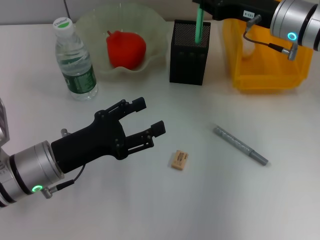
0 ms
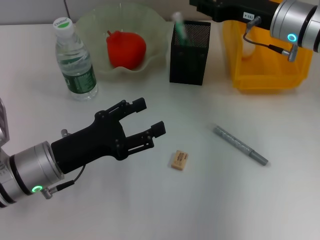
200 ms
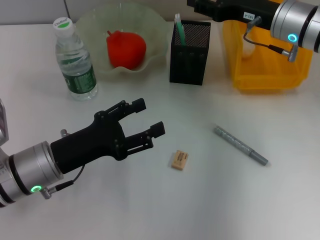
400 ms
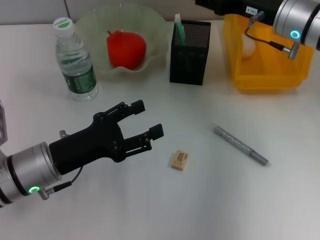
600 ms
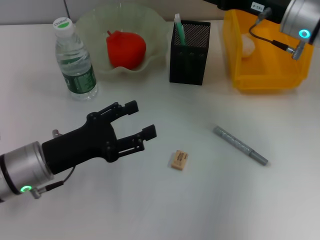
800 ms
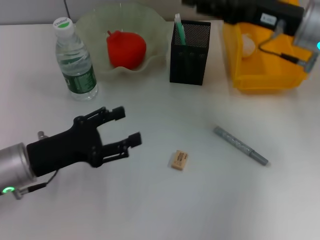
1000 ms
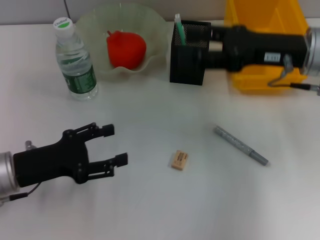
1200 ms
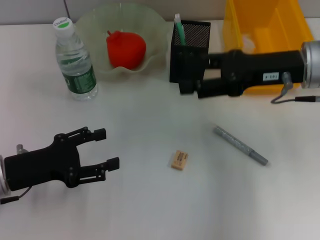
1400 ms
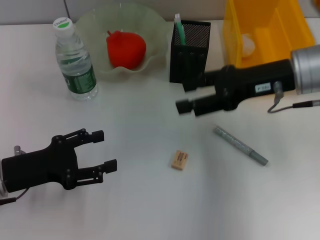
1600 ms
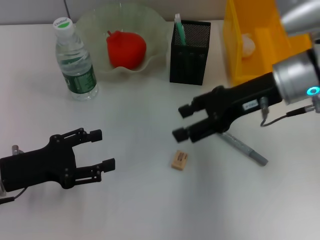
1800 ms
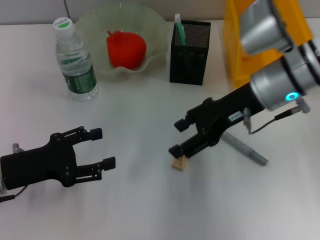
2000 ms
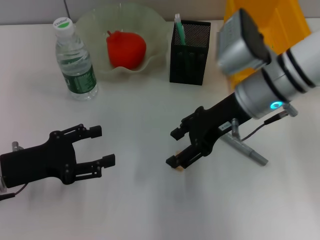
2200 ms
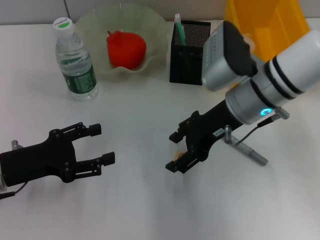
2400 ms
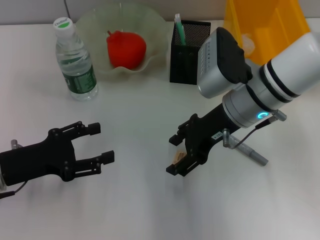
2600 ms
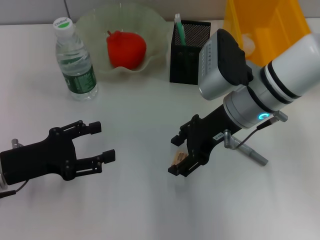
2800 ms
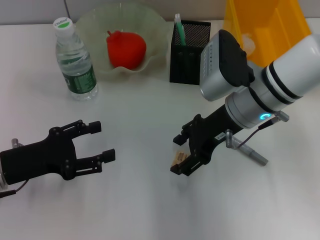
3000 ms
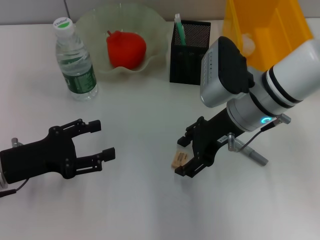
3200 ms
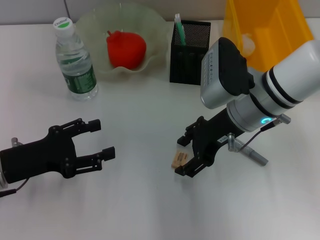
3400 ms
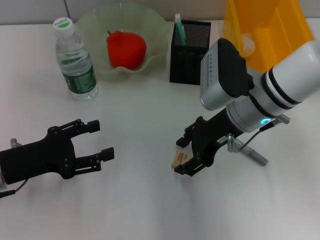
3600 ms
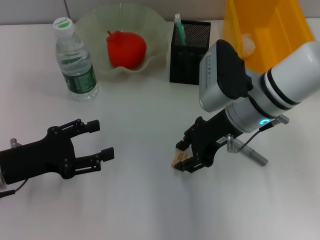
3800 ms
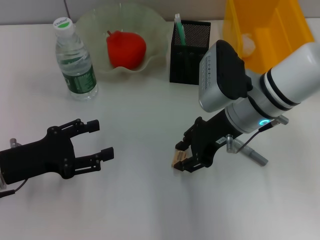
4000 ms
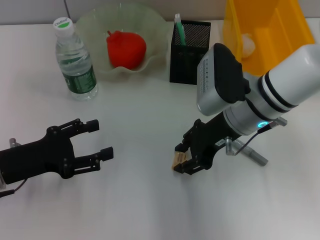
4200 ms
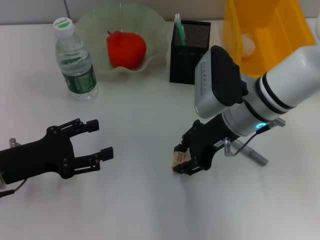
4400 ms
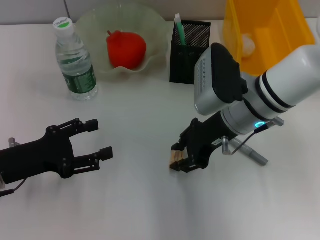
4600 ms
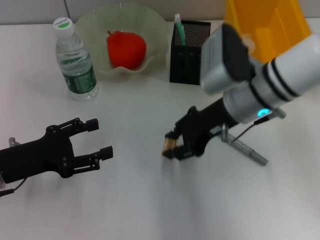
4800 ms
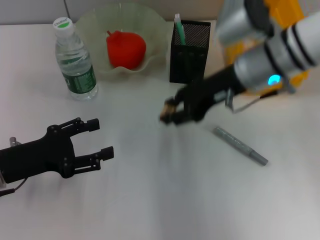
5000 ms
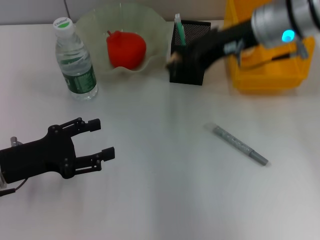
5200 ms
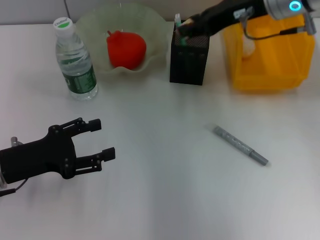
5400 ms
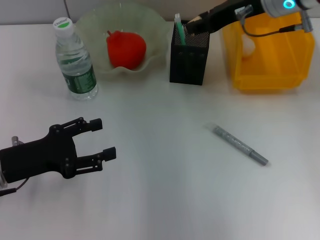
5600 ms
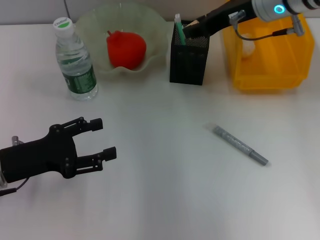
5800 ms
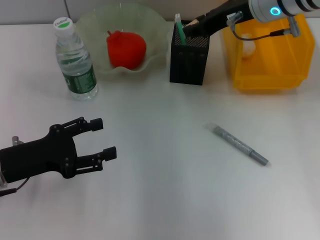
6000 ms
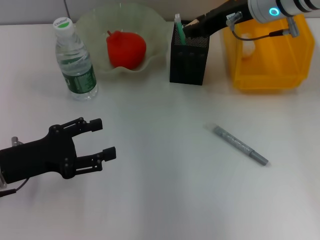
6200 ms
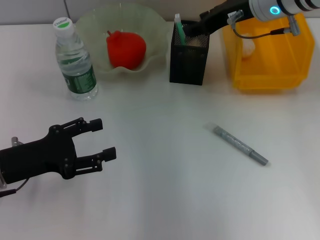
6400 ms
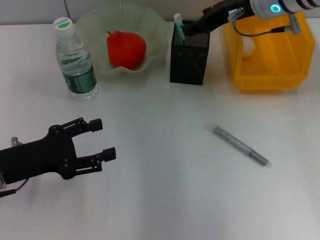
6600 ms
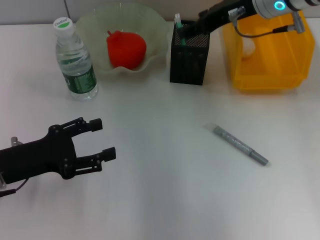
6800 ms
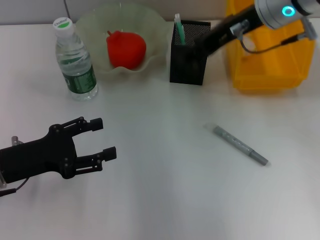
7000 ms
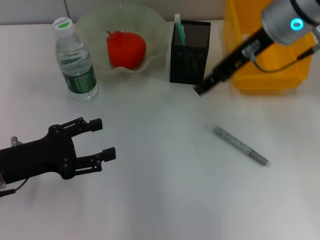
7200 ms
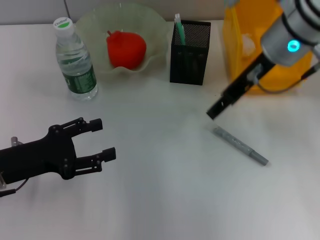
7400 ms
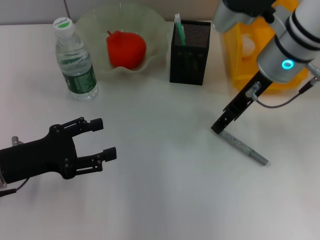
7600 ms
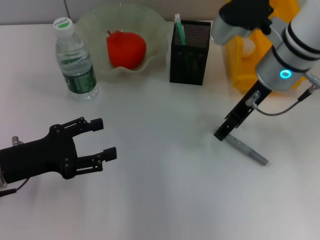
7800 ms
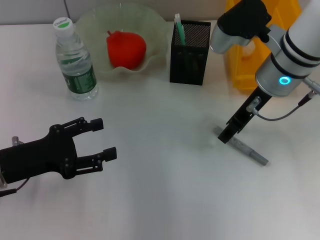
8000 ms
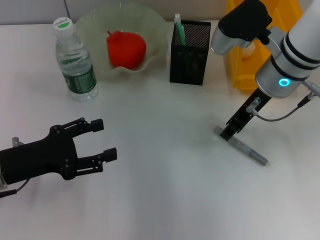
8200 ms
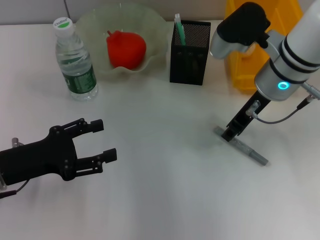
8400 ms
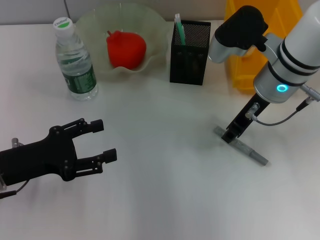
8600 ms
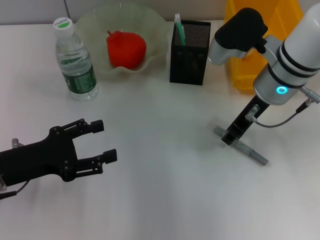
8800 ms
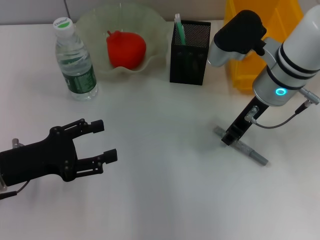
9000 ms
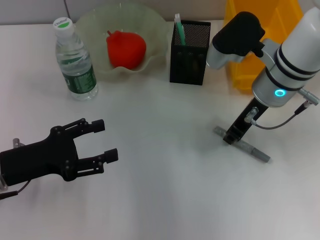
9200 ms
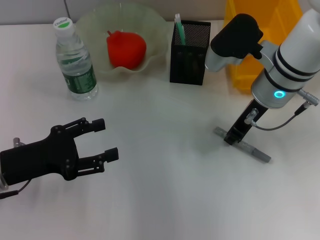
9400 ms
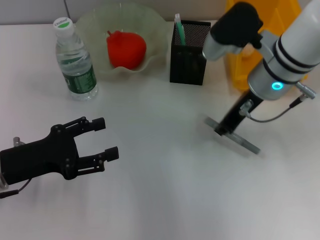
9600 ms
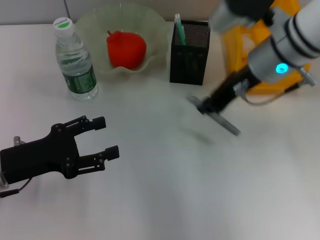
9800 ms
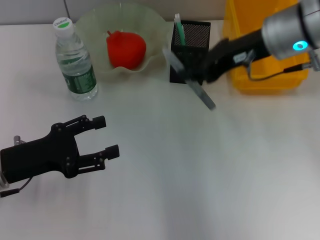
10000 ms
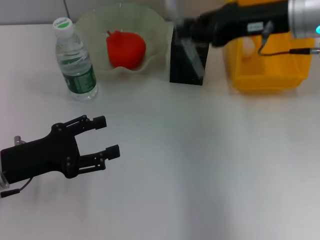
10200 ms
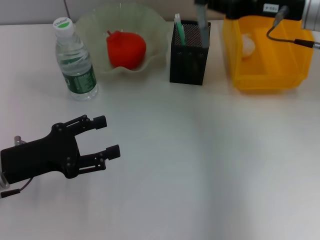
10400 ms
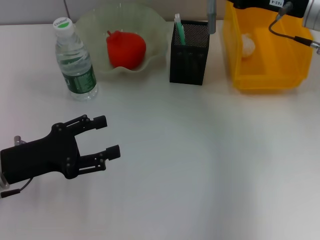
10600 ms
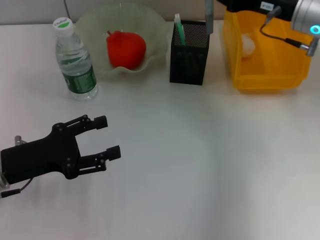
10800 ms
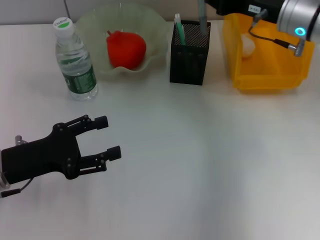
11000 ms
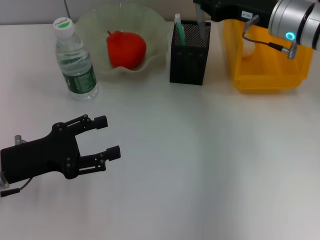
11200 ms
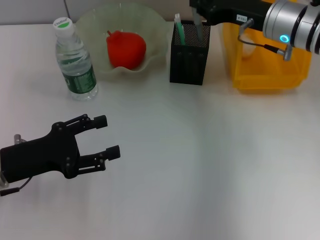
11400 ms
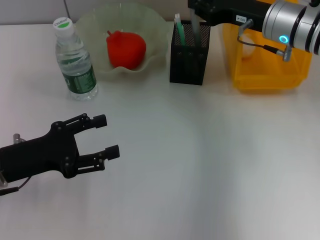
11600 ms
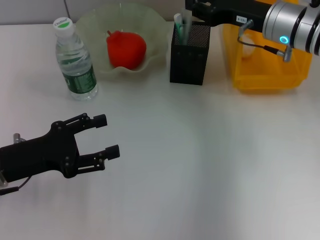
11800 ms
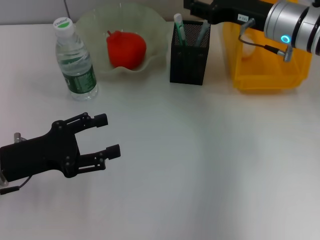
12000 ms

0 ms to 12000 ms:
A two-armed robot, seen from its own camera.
Step, 400 ms to 4200 ms: Grab the eraser with the right hand.
Step, 4400 ms to 6400 ms: Put the eraser into the pen holder with the right hand.
Step, 6600 ms to 9200 ms: Grab the gray glue with the right hand.
Step, 9400 ms to 11800 ms: Place the gray glue into the pen holder with the right hand.
0 ms to 1600 ms: The left gripper travels to the left by about 5 cm, while the right gripper shifts roughly 5 cm backward, and opens.
1600 ms to 3000 ms: The right gripper shifts about 10 cm to the left.
3000 ms to 4400 ms: The right gripper closes up.
4400 ms to 6000 ms: The right gripper is displaced upward and forward by roughly 15 cm.
6000 ms to 7600 ms: The right gripper ends up some 5 cm from where it was.
7600 ms to 9000 ms: The right gripper closes its fingers.
9000 ms to 10400 ms: The right gripper travels to the right and upward by approximately 10 cm.
10400 ms to 12000 ms: The right gripper goes roughly 5 cm downward, and opens its fingers.

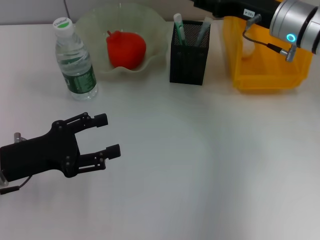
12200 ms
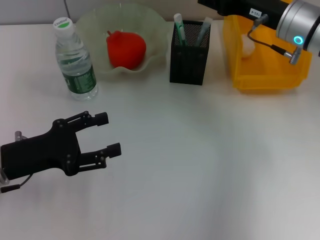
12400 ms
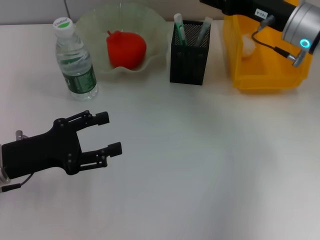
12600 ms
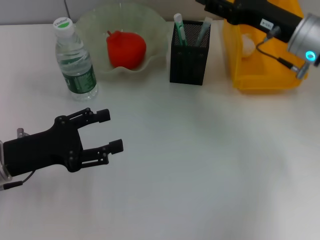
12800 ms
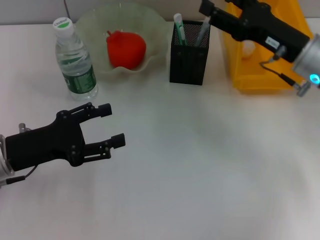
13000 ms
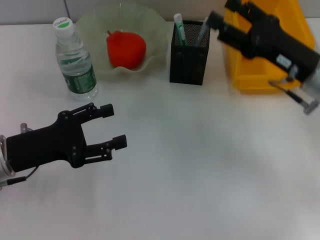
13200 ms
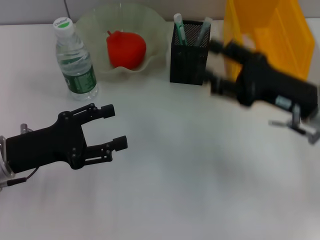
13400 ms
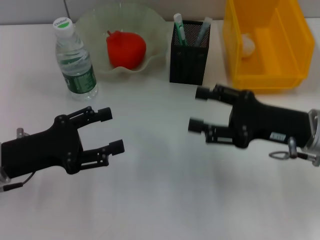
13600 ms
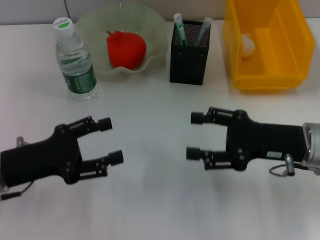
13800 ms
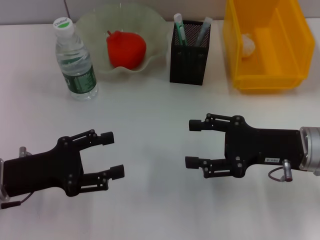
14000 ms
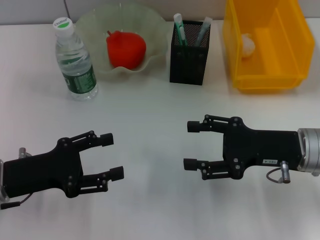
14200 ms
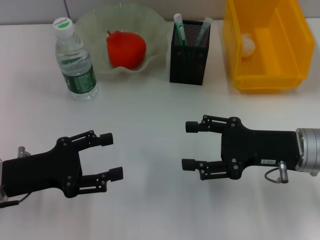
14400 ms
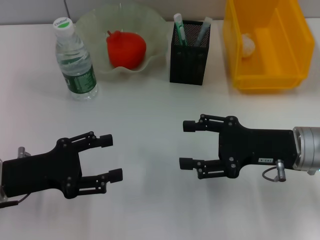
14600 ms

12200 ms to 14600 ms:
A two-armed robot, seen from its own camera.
12200 ms to 13400 ms: The right gripper is displaced backward by some 10 cm.

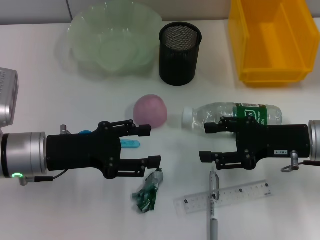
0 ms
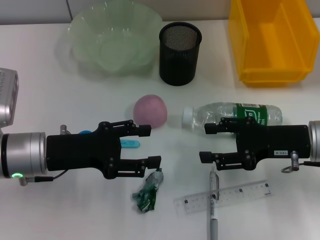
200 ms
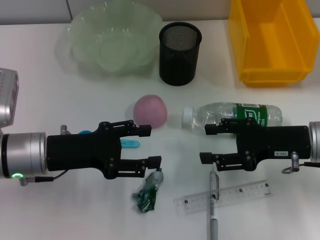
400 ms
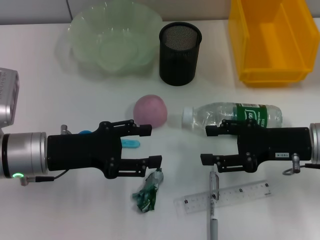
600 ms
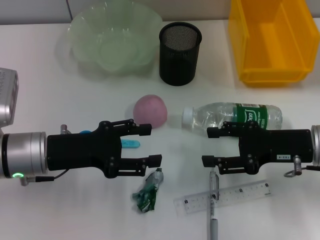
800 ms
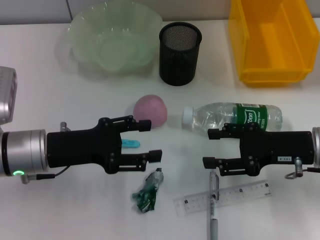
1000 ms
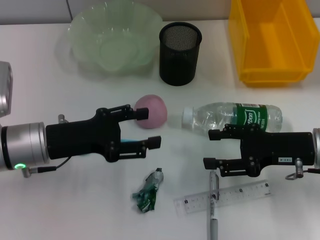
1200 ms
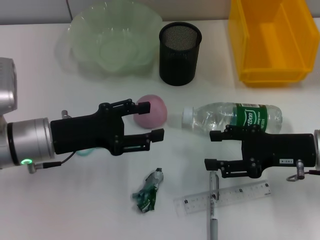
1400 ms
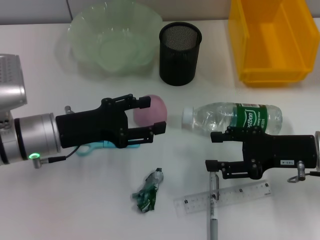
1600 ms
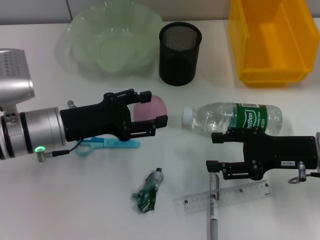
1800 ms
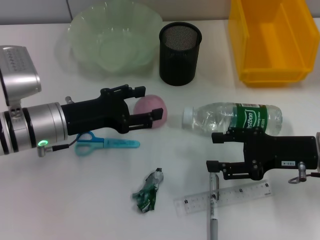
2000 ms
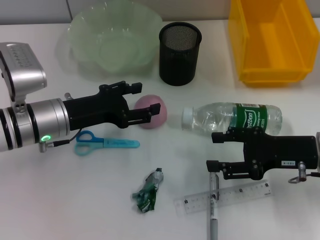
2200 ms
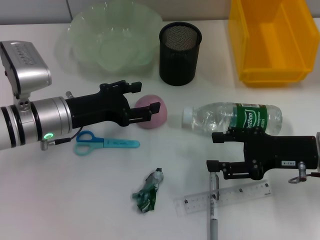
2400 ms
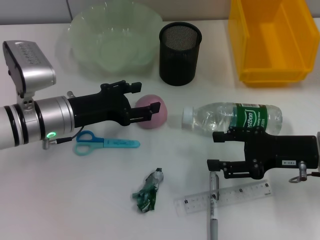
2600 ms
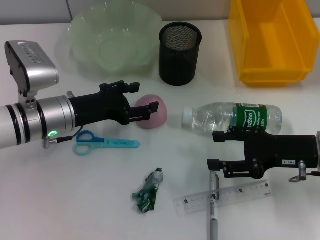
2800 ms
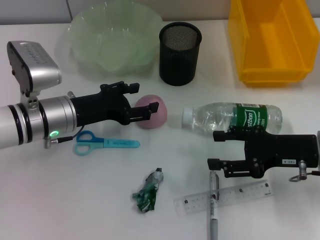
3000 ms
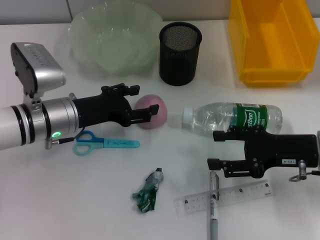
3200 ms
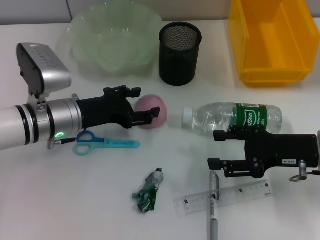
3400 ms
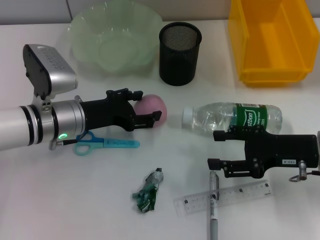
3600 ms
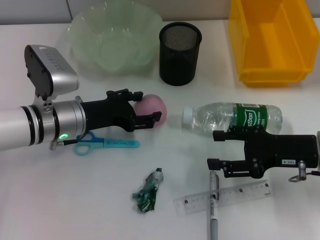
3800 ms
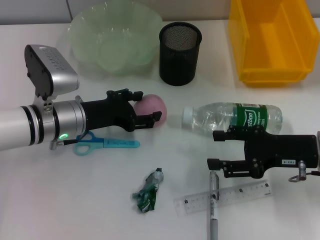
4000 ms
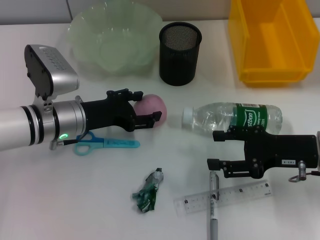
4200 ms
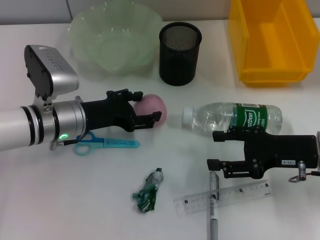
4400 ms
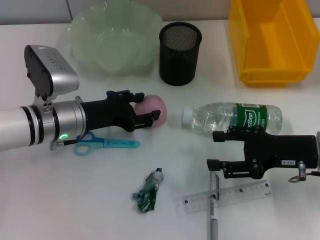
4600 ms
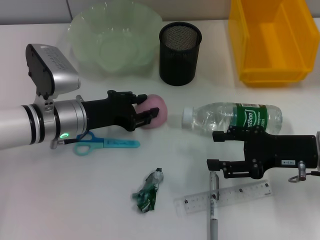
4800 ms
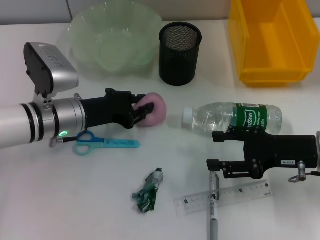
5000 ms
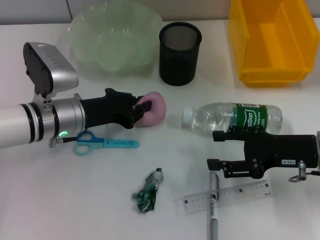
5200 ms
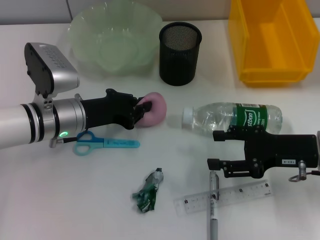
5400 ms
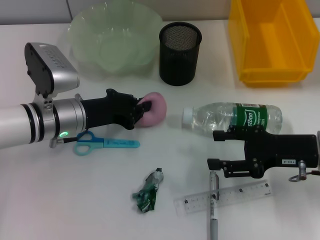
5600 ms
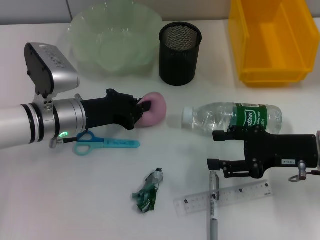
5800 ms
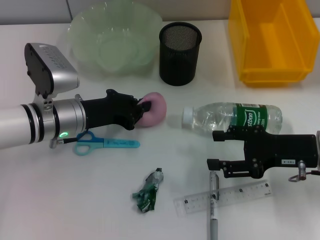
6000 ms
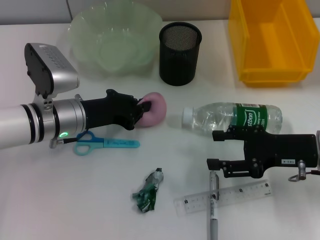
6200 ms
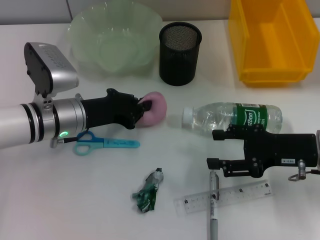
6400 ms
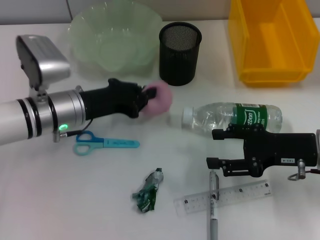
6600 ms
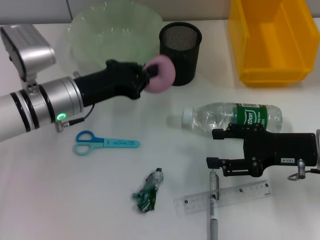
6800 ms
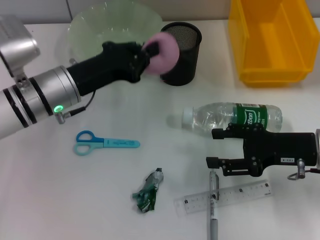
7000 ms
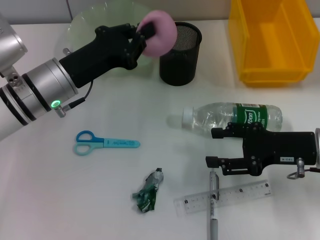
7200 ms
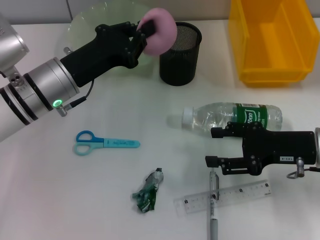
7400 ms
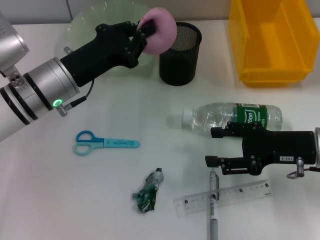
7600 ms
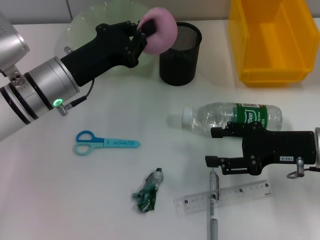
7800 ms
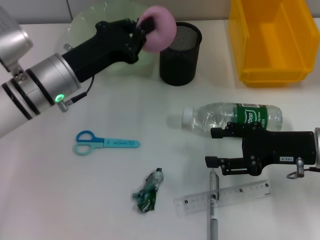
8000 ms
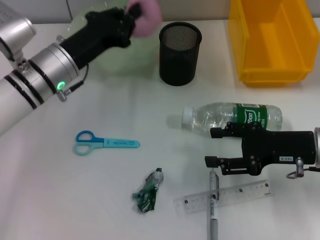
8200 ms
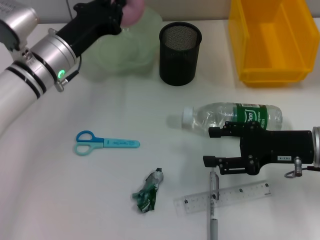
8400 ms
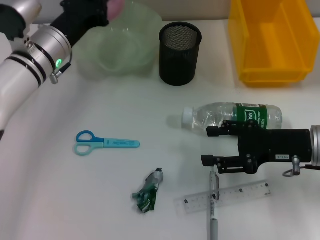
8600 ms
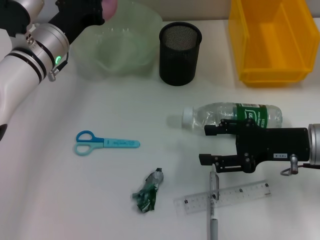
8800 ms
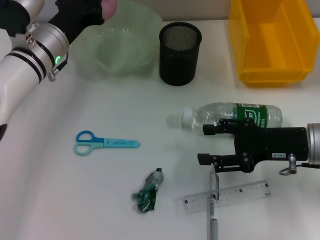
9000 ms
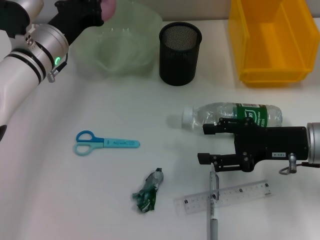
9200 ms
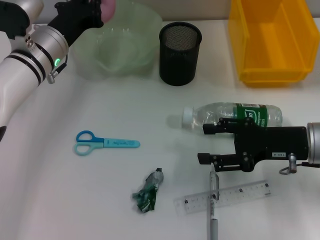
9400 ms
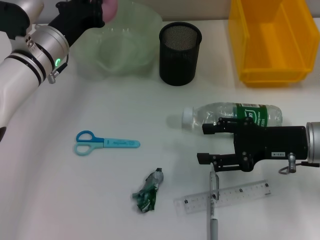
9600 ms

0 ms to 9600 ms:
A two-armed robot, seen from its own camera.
Step, 0 ms to 4800 ms: Grab the peach with the left hand.
0 ms to 1600 ms: The grippers make only small movements.
1600 ms to 3200 ms: The grippers move only a little.
3200 ms to 4800 ms: The two grippers keep their place.
4800 ms to 6400 ms: The left gripper closes its fingers.
8000 ms to 9600 ms: The left gripper heads forward, covering about 5 cm.
